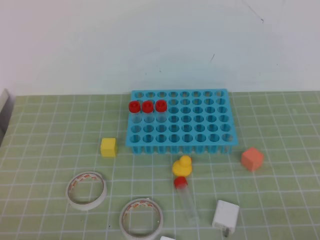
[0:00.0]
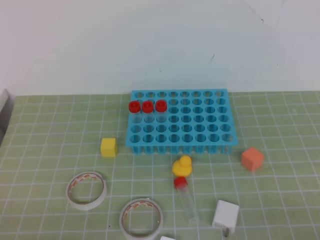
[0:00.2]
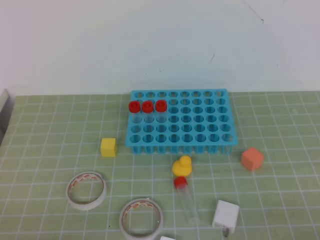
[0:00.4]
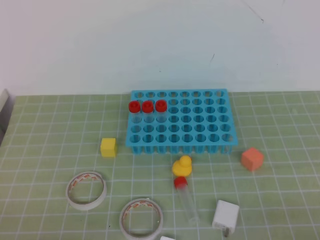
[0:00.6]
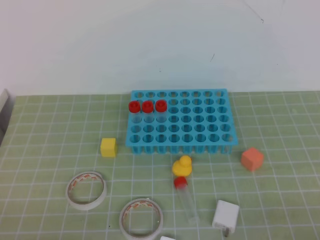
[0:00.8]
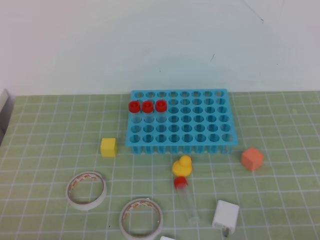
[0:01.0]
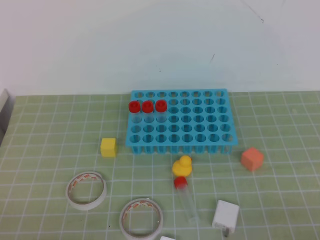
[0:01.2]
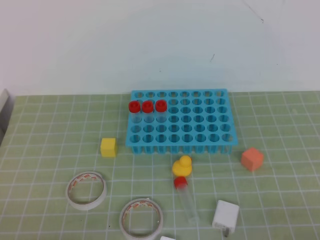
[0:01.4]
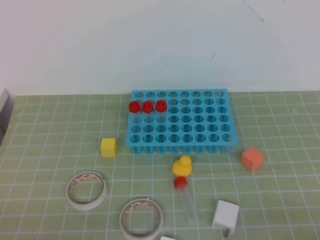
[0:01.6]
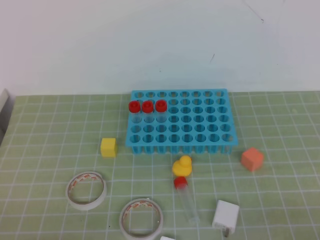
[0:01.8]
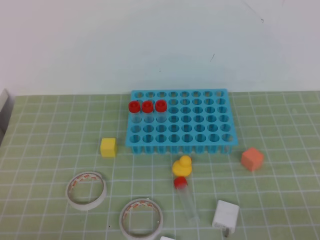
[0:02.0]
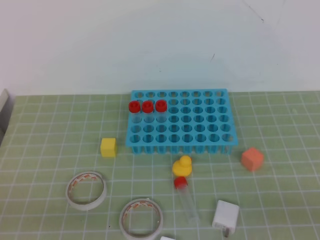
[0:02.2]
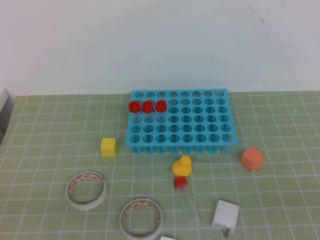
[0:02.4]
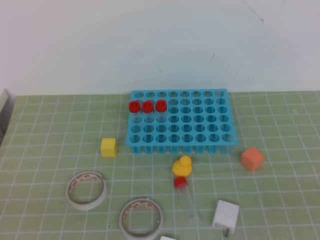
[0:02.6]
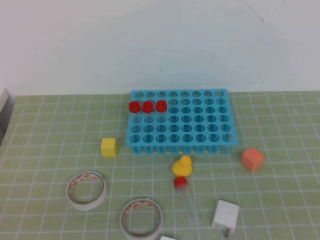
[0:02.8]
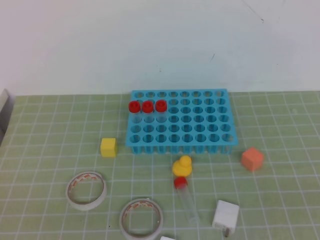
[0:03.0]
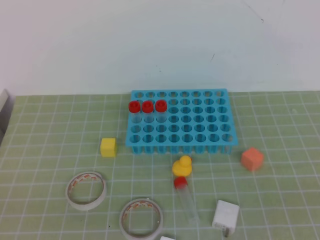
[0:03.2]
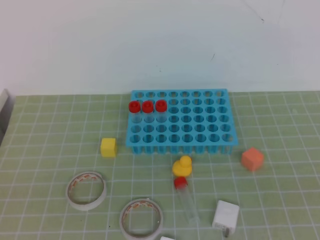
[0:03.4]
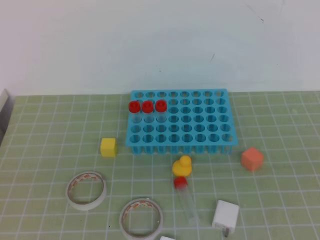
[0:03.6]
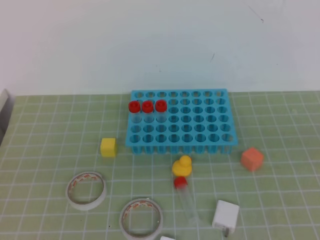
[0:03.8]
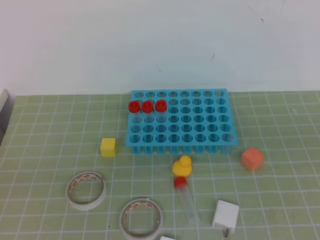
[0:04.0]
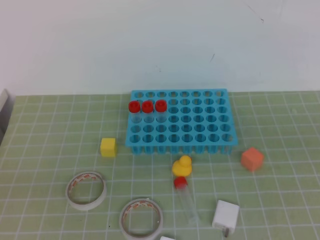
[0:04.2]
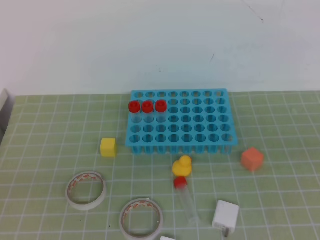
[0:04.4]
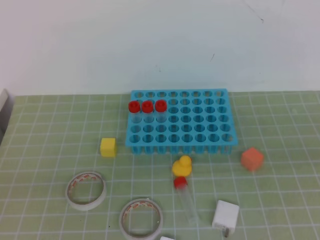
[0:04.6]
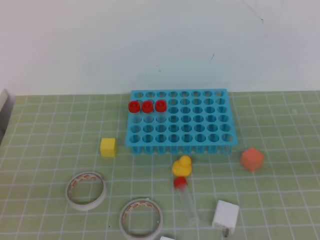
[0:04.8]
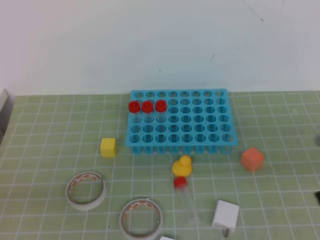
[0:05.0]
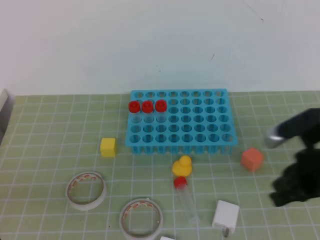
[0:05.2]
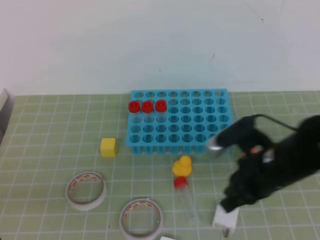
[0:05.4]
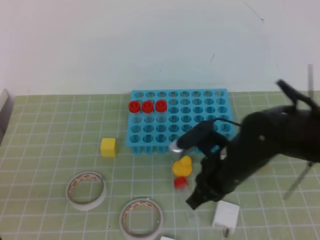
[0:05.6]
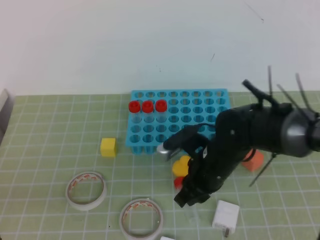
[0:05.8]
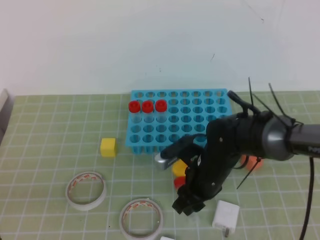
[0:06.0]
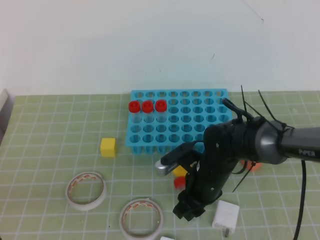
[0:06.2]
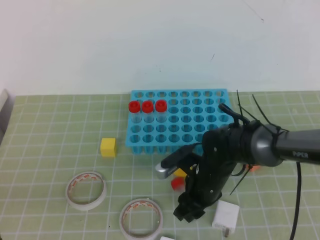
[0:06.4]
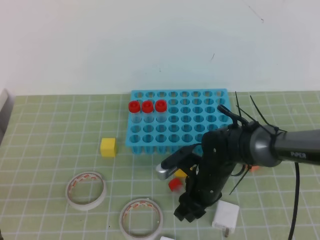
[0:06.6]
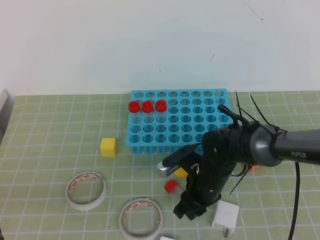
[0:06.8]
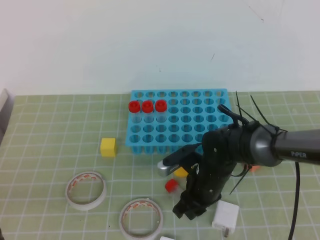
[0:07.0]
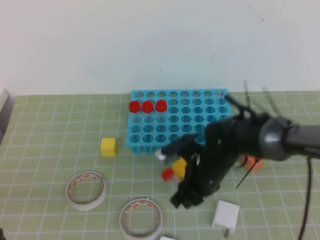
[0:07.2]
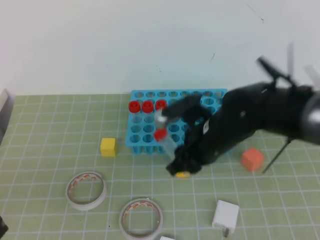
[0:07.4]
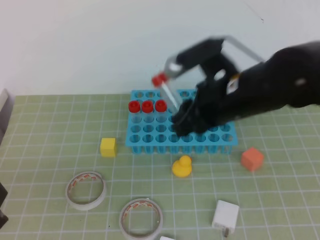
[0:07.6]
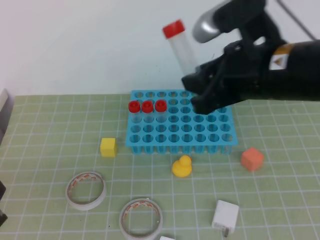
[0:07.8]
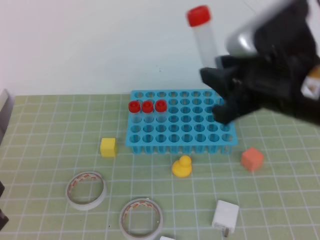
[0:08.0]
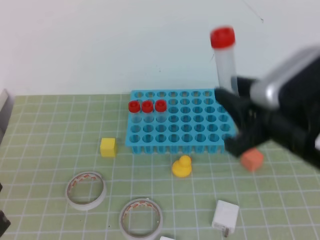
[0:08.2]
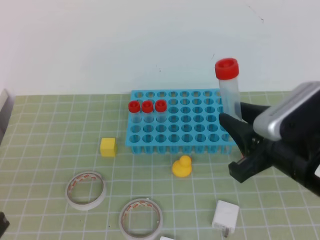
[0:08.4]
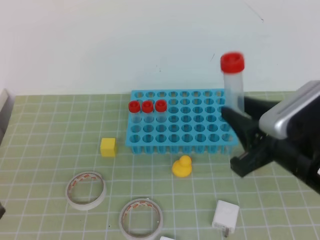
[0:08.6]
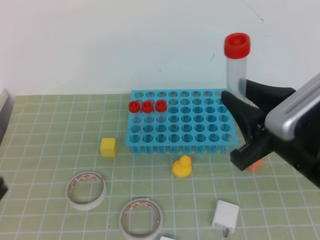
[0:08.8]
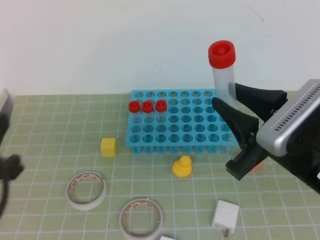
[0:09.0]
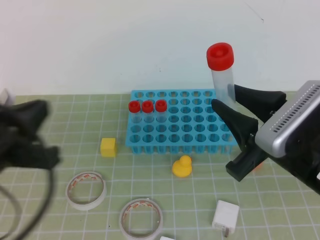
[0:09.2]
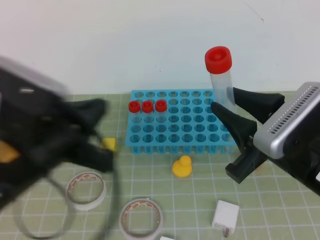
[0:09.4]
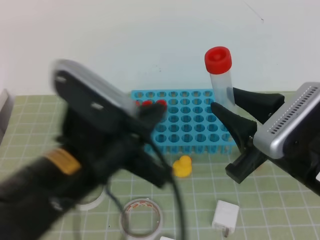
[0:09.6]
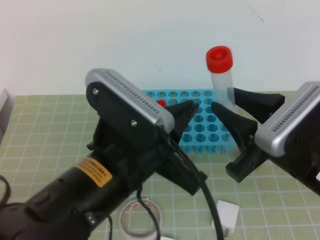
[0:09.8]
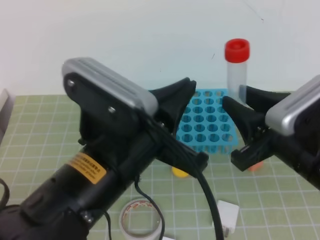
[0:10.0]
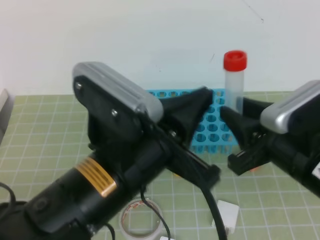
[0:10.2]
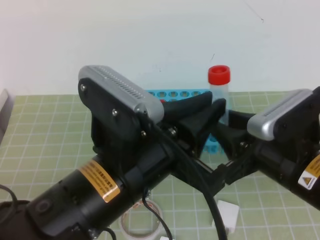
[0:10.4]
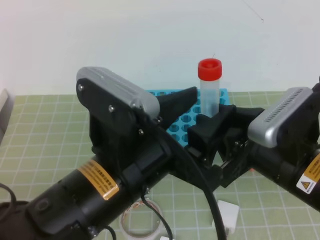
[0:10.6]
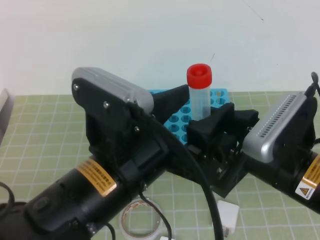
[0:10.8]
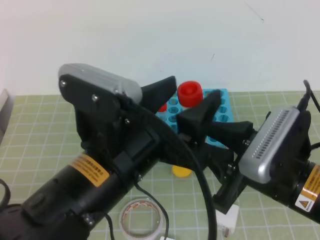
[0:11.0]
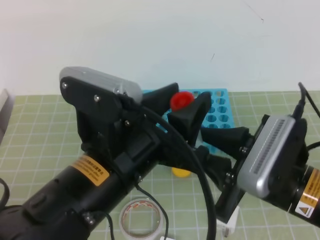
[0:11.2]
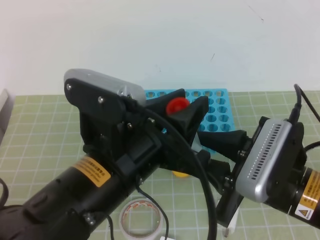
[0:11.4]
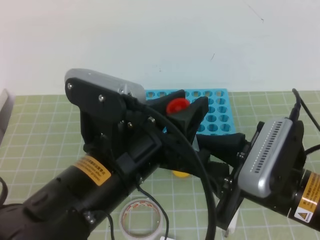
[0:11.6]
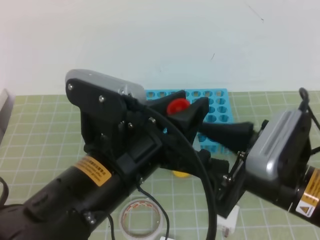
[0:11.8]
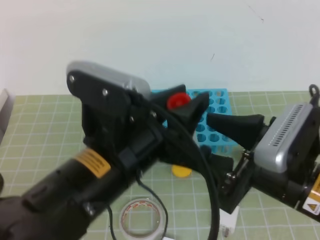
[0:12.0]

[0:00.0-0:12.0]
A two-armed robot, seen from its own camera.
0:00.0 to 0:01.6: The two grippers keep their place.
0:04.4 to 0:06.0: The right gripper heads to the left, forward and downward, covering roughly 35 cm, and opens up.
0:06.0 to 0:07.6: The right gripper shifts roughly 15 cm upward.
0:07.6 to 0:09.0: The left gripper moves upward, approximately 5 cm. Meanwhile the right gripper is displaced backward and to the right by about 15 cm.
0:09.0 to 0:10.4: The left gripper goes roughly 20 cm to the right, and opens its fingers.
0:10.4 to 0:12.0: The left gripper opens, then closes once more.

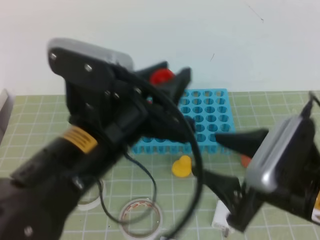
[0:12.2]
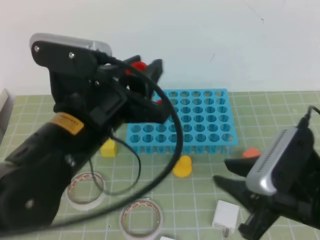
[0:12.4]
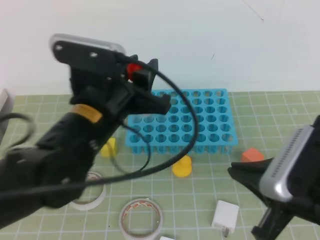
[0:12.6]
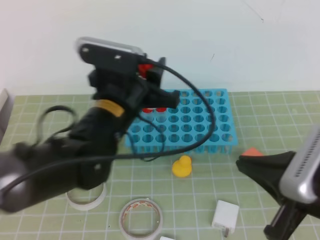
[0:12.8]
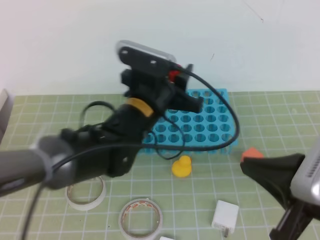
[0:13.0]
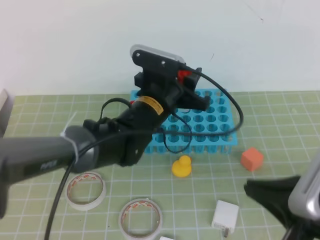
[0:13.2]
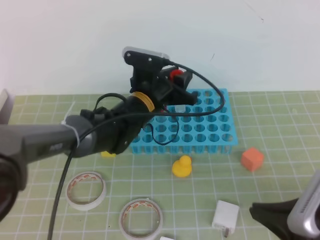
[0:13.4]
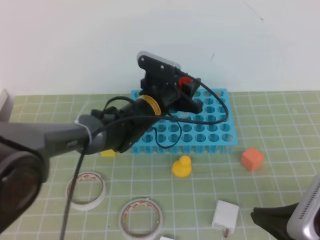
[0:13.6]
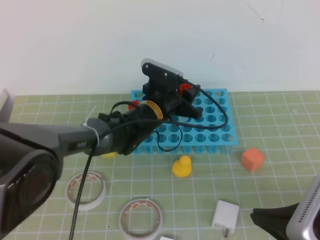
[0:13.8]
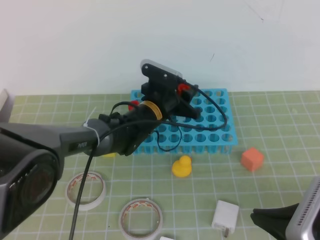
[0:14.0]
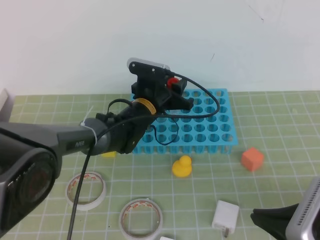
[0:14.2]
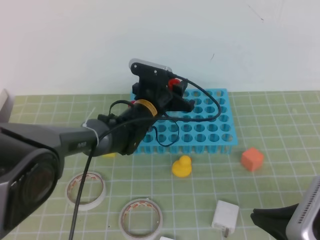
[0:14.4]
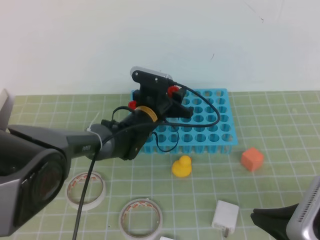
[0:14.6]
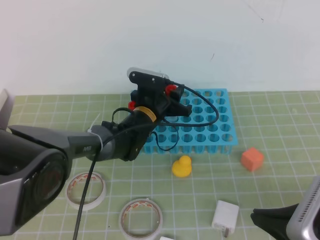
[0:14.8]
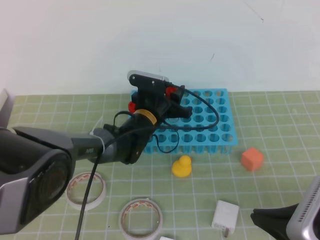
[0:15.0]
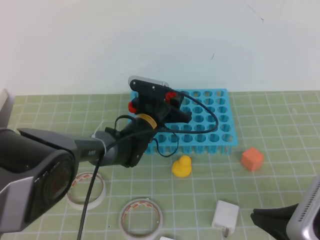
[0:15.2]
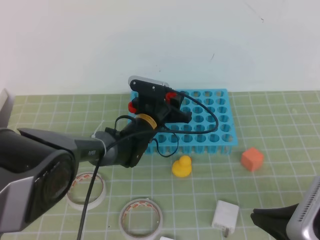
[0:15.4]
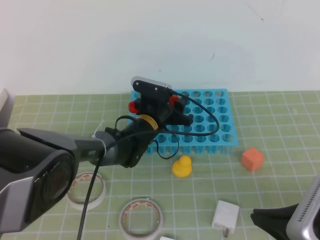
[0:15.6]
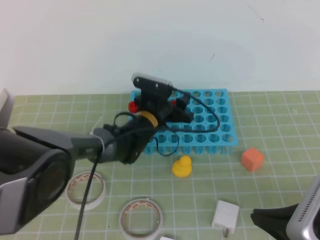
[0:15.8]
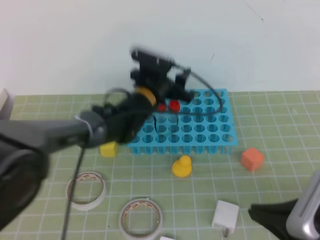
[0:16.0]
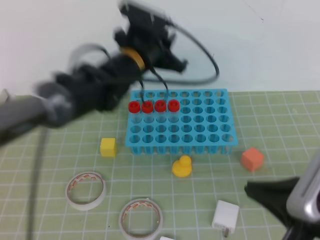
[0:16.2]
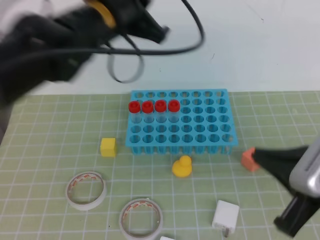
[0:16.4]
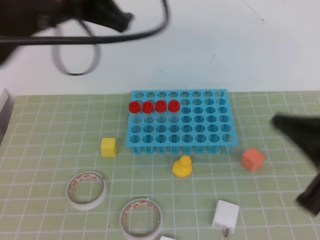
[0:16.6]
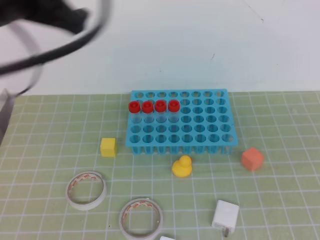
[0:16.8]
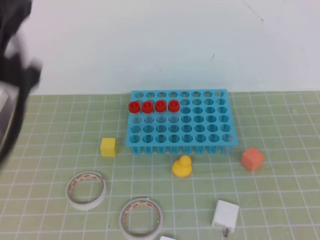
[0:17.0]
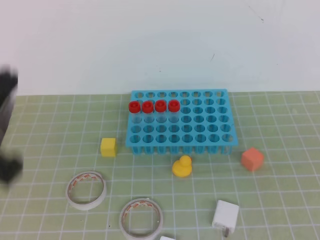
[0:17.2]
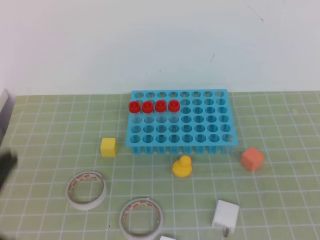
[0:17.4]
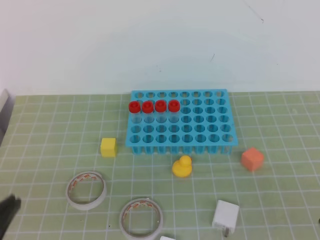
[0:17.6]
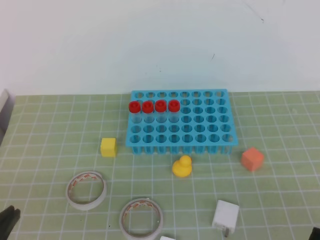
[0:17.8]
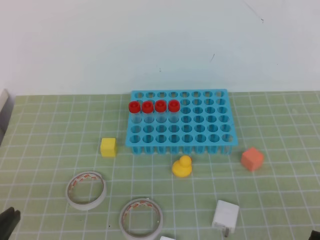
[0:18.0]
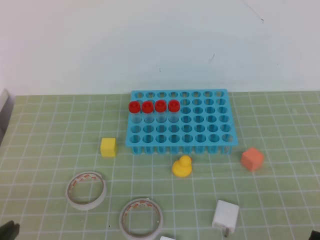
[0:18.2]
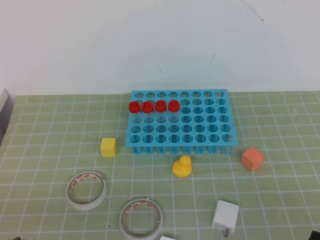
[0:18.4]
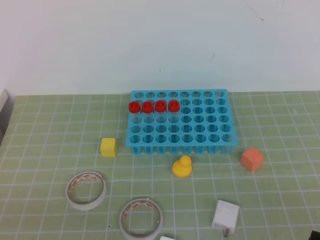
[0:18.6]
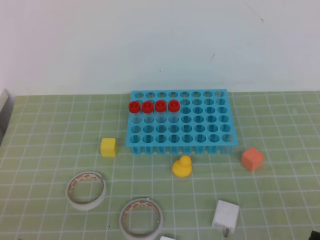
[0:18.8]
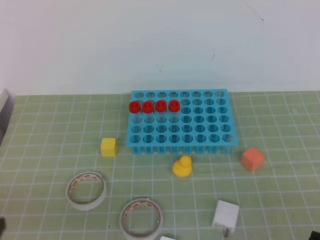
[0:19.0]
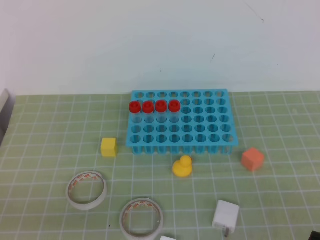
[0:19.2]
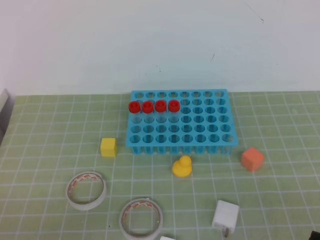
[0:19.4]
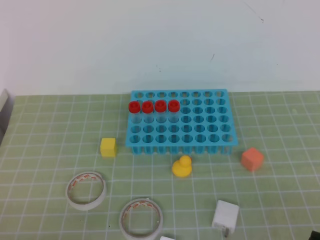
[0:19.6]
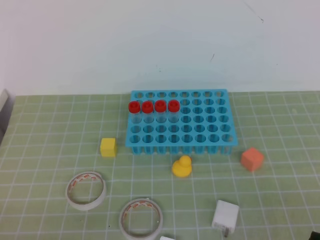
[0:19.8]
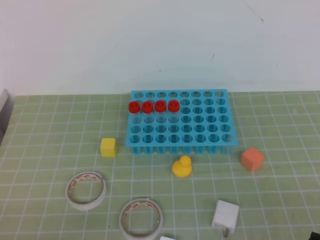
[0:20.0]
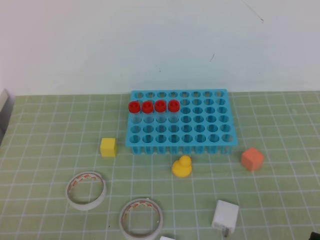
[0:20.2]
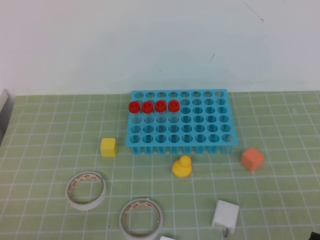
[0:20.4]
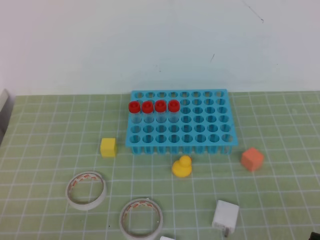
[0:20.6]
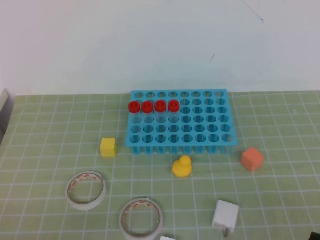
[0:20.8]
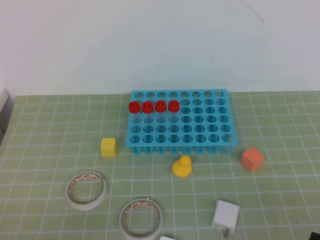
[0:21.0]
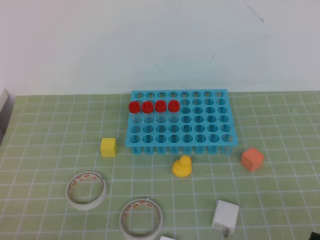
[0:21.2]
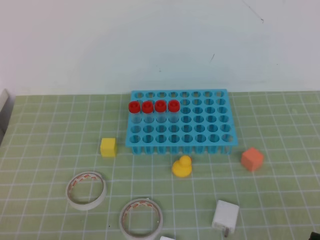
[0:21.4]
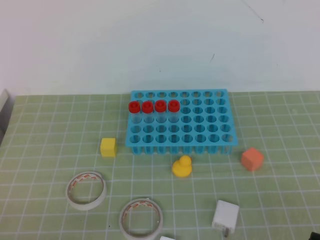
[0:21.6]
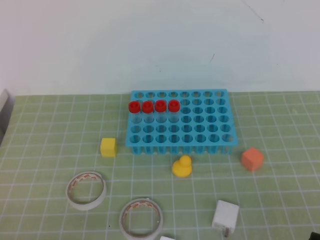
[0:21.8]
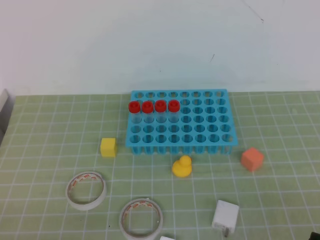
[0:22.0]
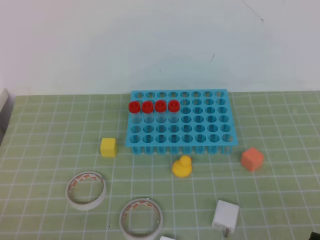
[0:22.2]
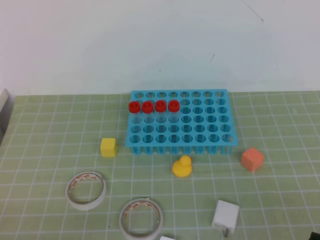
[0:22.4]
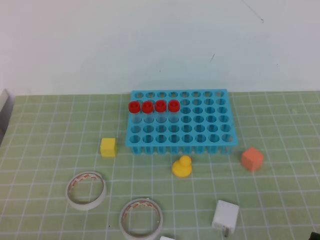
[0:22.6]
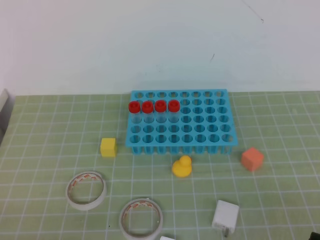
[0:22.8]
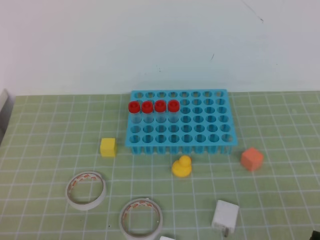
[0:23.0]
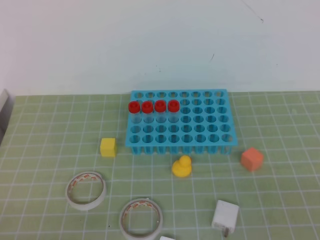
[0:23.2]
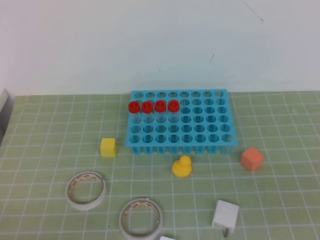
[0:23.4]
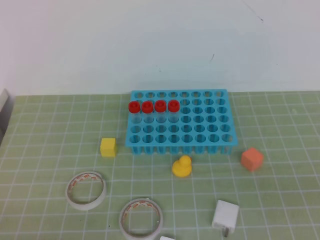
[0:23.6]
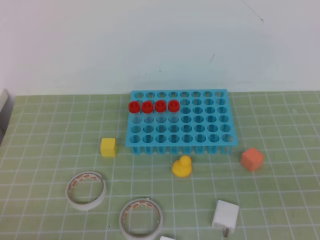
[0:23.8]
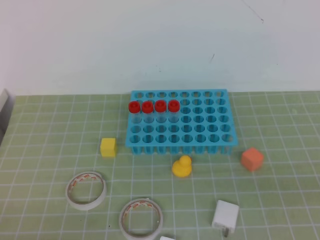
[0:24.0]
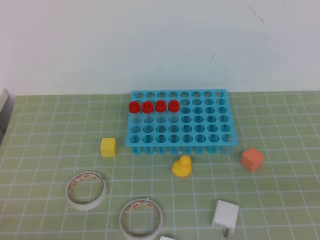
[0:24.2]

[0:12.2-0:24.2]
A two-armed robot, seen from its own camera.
0:12.2 to 0:13.8: The right gripper moves backward, some 5 cm, and closes up, while the left gripper travels forward and downward by some 30 cm.
0:13.8 to 0:15.2: The left gripper shifts by some 5 cm.
0:15.2 to 0:16.6: The left gripper moves upward and backward, some 35 cm, and closes up. The right gripper goes about 10 cm upward.
0:16.6 to 0:18.2: The right gripper moves backward and downward, some 10 cm, while the left gripper heads backward, downward and to the left, covering some 35 cm.
0:19.8 to 0:22.6: Both grippers stay put.
